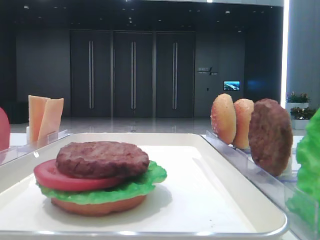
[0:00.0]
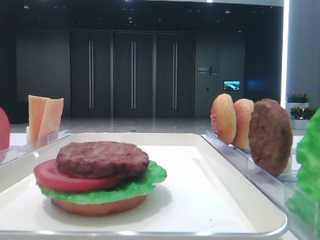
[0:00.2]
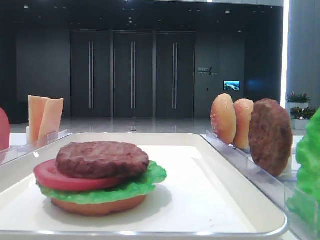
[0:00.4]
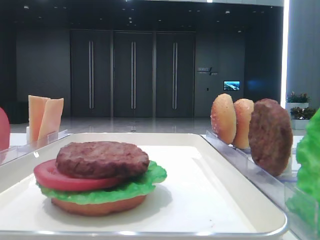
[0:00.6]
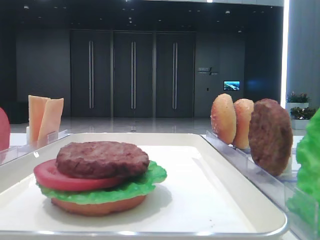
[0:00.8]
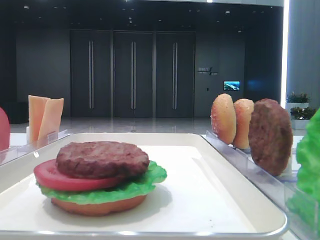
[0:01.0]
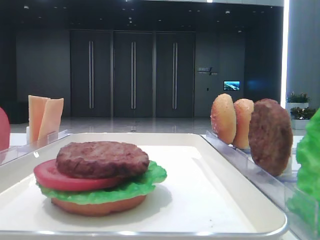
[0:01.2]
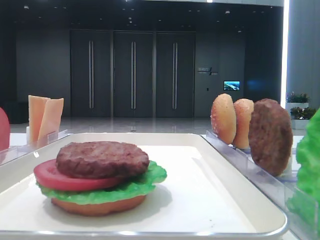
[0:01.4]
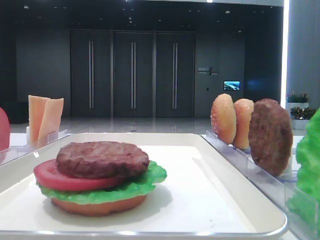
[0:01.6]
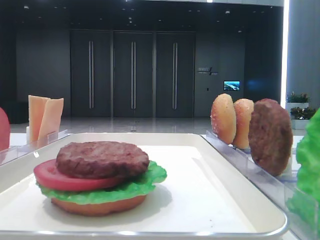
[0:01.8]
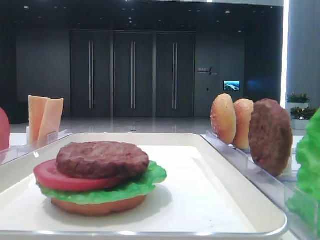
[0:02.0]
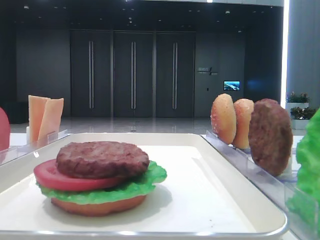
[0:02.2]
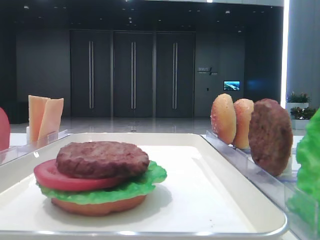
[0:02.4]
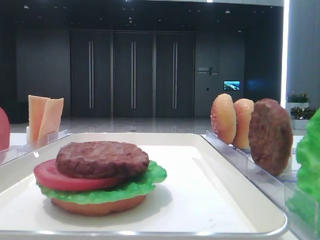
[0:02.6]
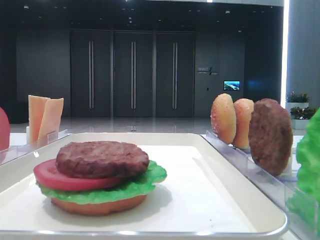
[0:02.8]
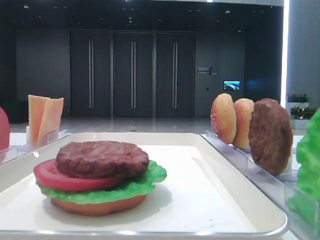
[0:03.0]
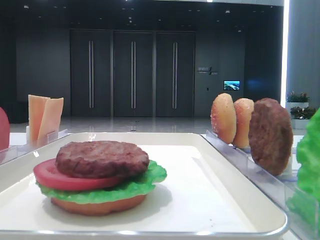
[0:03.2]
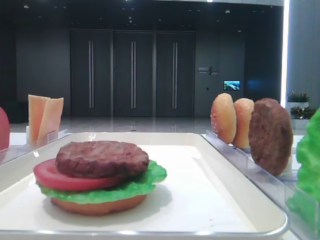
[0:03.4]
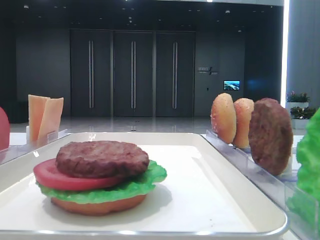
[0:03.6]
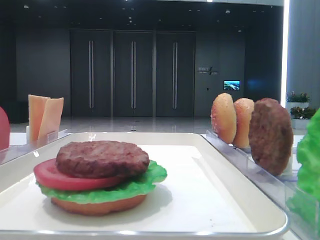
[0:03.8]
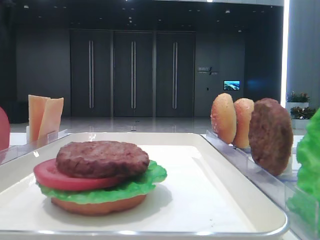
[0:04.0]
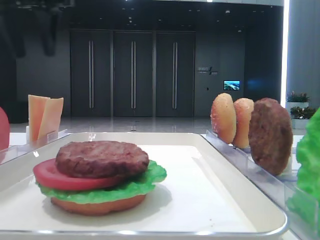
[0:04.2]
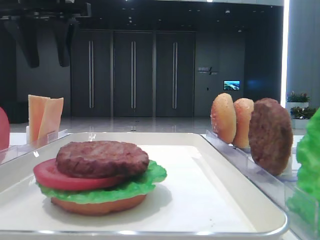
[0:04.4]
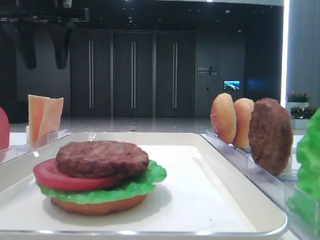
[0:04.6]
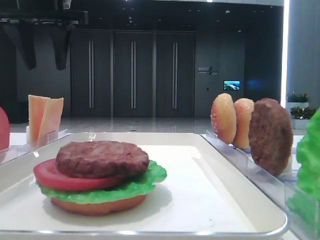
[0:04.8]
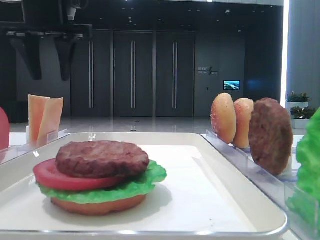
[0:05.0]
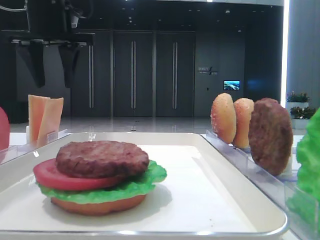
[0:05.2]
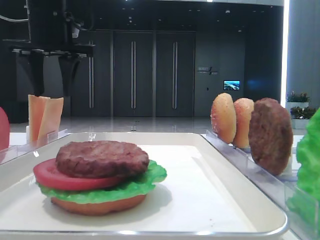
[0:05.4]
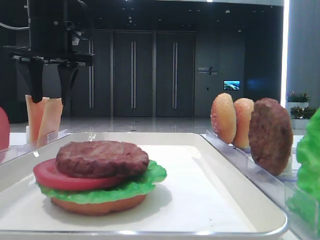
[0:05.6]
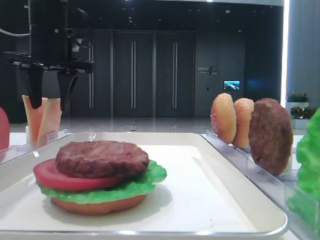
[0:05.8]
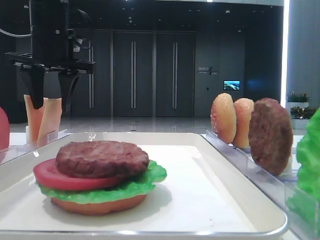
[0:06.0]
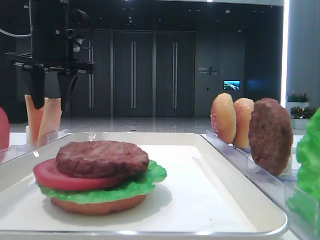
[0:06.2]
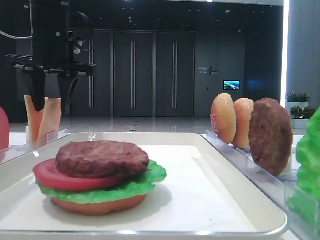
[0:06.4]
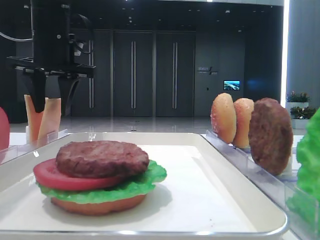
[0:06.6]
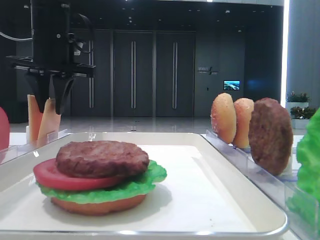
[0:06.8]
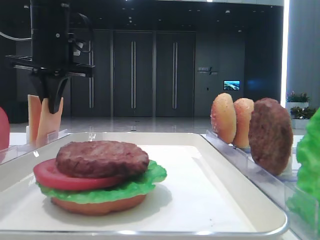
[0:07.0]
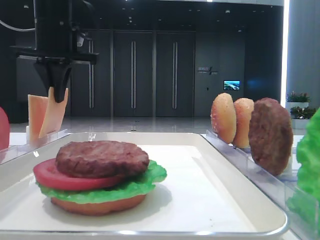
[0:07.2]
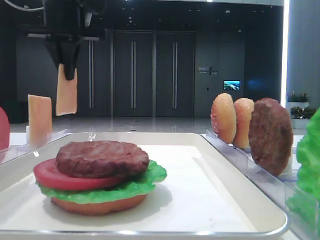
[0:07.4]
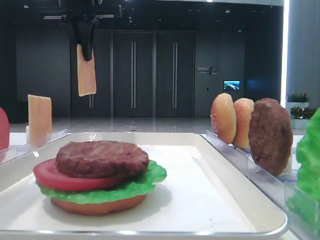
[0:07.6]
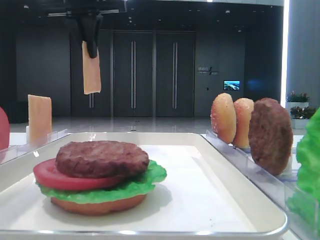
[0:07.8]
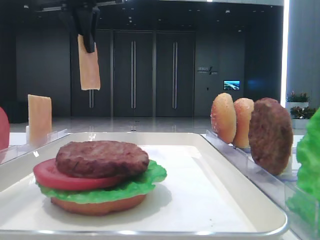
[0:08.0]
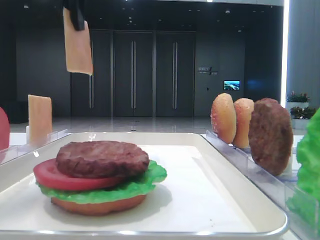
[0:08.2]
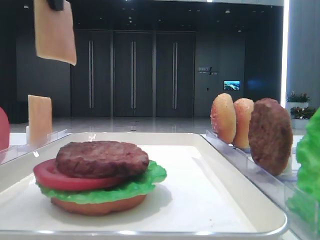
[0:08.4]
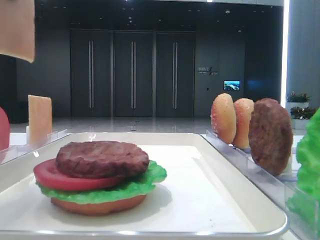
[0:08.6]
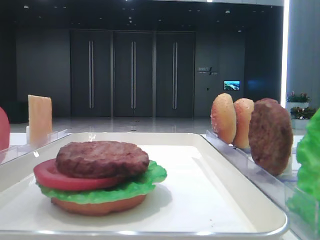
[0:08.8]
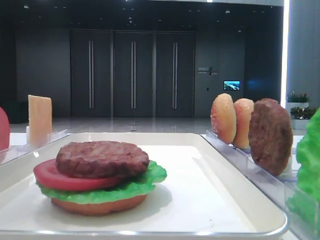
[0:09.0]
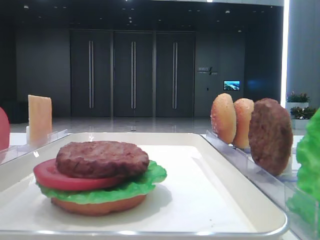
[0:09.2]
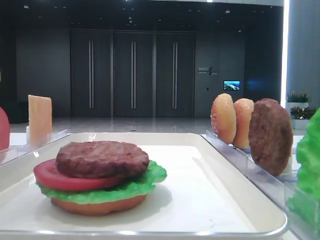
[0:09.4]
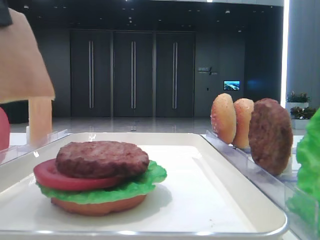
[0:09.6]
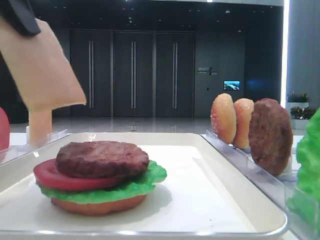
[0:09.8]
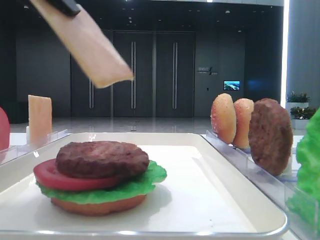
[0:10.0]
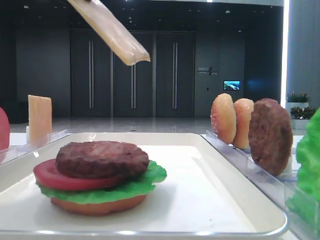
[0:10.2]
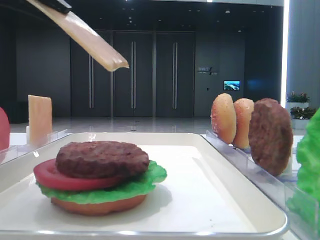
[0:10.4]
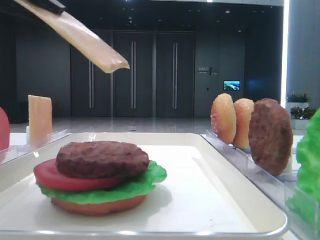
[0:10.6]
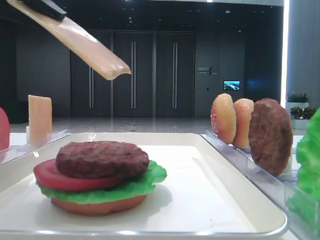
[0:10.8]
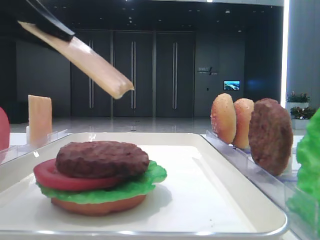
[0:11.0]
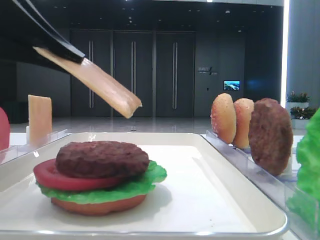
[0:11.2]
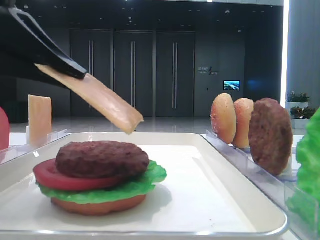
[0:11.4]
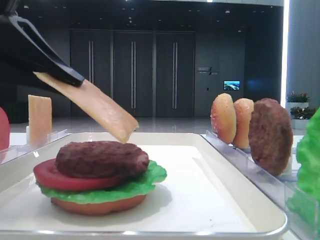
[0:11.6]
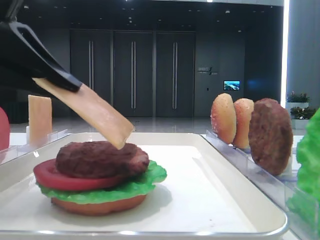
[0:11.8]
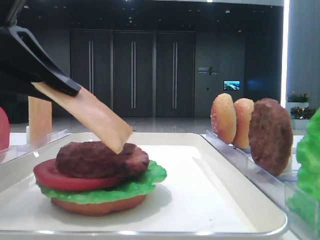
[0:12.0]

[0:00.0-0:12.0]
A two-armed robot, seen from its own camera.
Step, 0:00.0 to 0:06.8: Pick up the cheese slice with the left hand.
0:03.0 to 0:04.4: The left gripper is displaced to the right, forward and downward by some 20 cm.
0:04.4 to 0:06.0: The left gripper heads downward, covering roughly 5 cm.
0:06.0 to 0:07.6: The left gripper travels upward by approximately 10 cm, and closes up.
0:07.6 to 0:09.0: The left gripper goes approximately 20 cm backward.
0:09.0 to 0:10.4: The left gripper goes approximately 10 cm downward.
0:10.4 to 0:12.0: The left gripper goes approximately 5 cm downward.

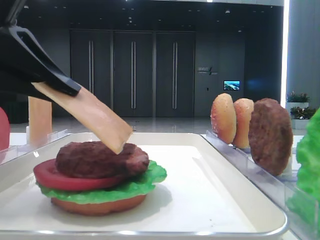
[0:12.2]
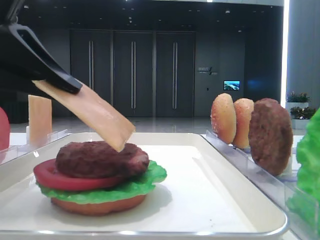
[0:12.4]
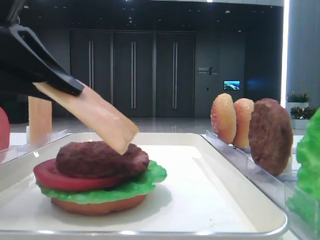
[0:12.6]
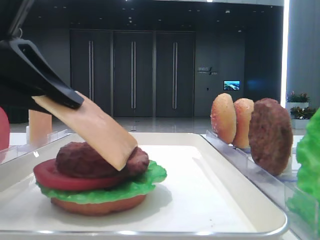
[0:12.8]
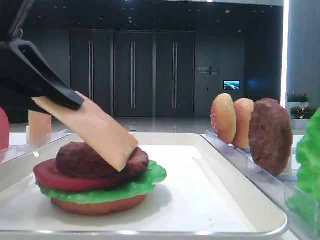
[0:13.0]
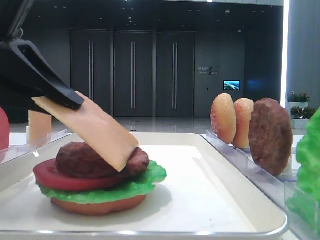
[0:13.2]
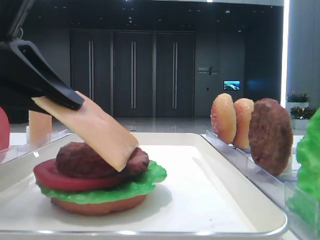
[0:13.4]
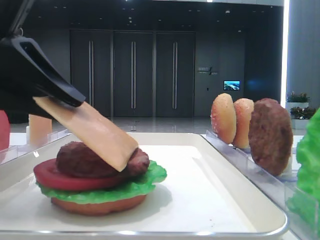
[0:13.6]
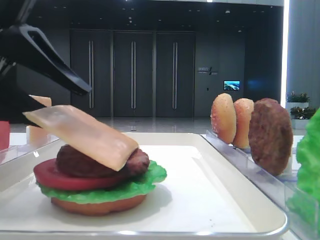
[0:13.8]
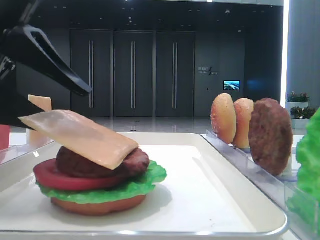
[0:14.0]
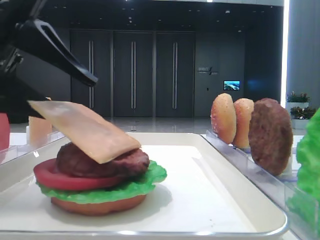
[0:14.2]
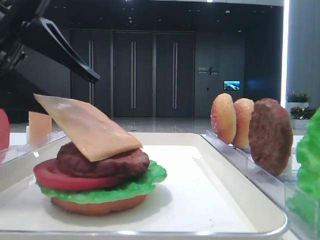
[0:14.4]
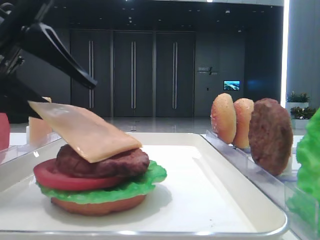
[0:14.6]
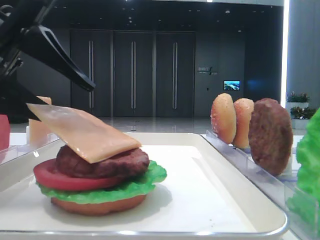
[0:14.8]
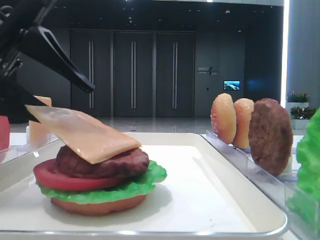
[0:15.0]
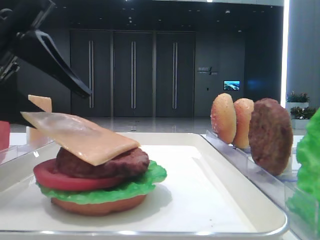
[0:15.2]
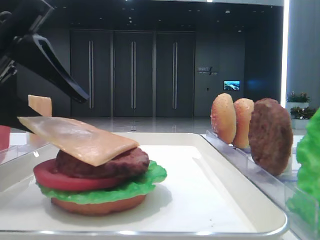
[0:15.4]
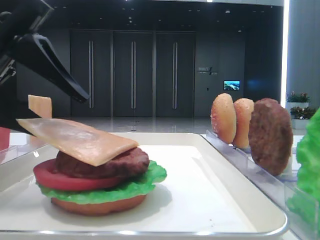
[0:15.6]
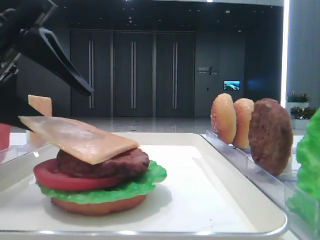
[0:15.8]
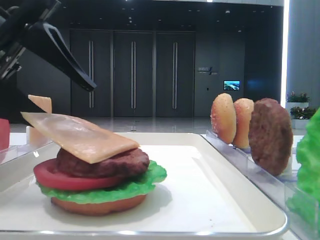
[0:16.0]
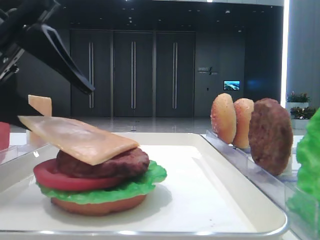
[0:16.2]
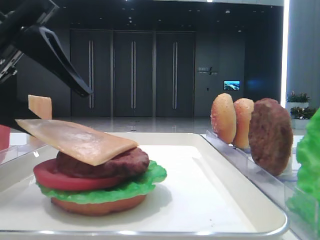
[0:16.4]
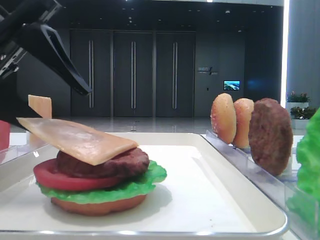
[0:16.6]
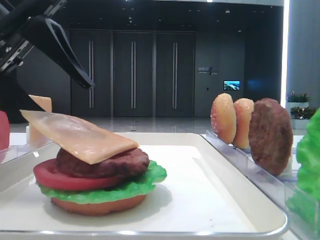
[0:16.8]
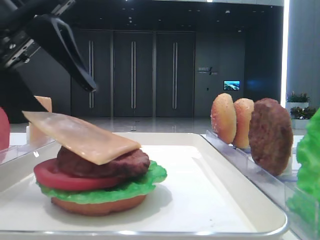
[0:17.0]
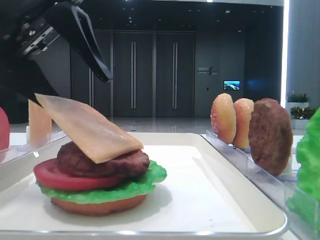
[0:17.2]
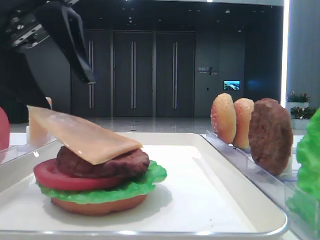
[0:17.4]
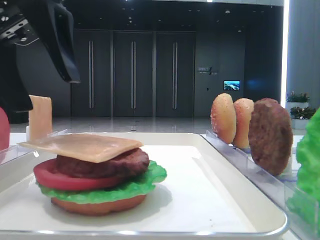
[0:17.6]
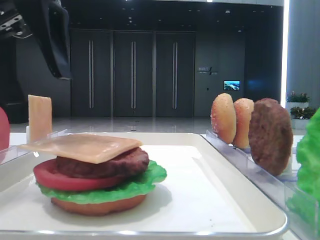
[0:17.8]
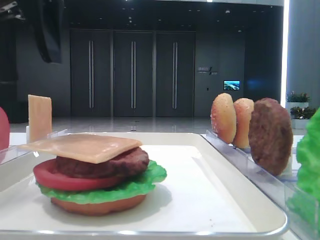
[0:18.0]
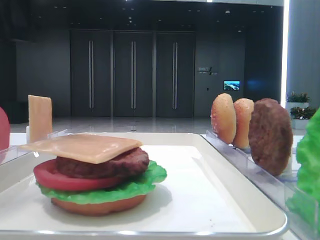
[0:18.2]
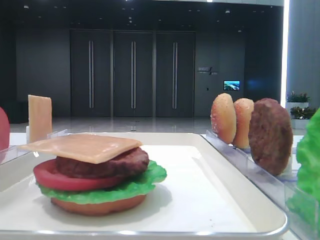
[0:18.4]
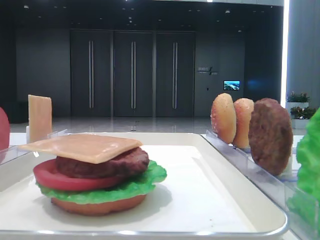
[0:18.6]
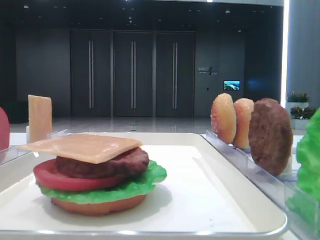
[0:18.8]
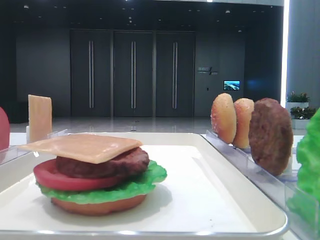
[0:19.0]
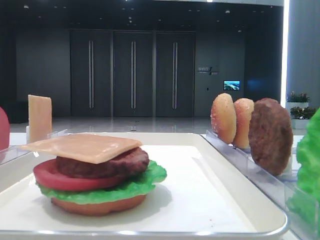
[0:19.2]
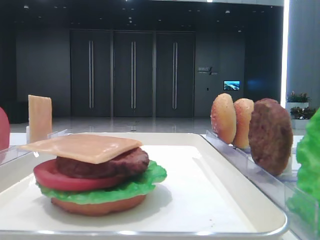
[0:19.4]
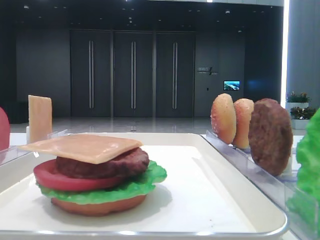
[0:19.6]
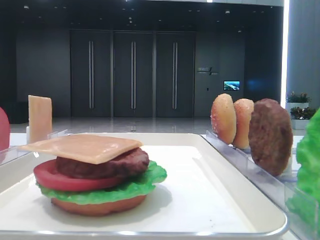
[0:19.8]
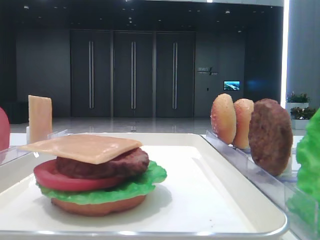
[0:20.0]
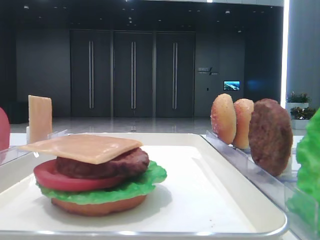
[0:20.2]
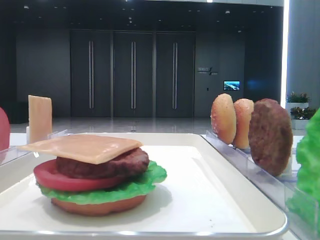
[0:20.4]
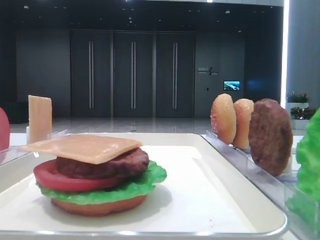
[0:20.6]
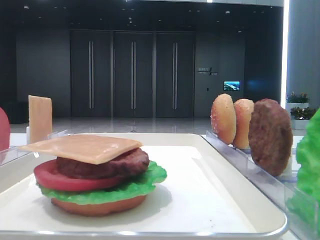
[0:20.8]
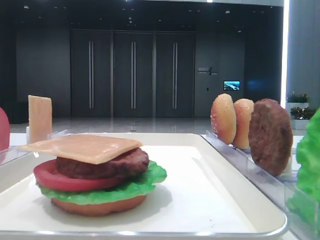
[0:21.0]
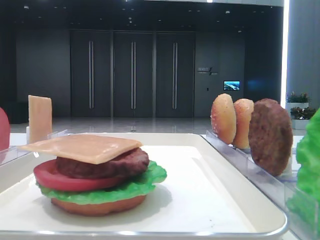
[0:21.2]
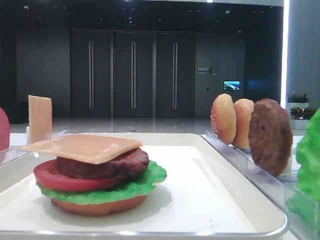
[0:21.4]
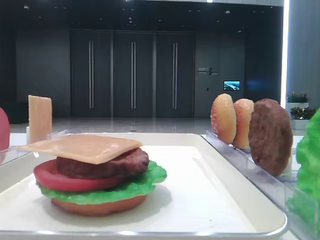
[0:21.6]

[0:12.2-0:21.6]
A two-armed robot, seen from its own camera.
Step, 0:12.2 to 0:17.4: Place the cheese slice on the patty with the left hand.
0:12.2 to 0:13.8: The left gripper opens its fingers.
0:13.8 to 0:17.0: There are only small adjustments of the grippers.
0:17.0 to 0:18.4: The left gripper is displaced upward by roughly 10 cm.
0:18.4 to 0:20.0: The left gripper heads backward and to the left, covering some 25 cm.

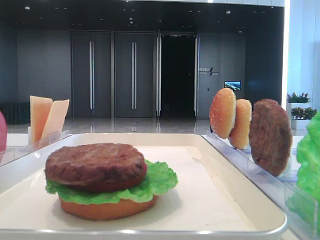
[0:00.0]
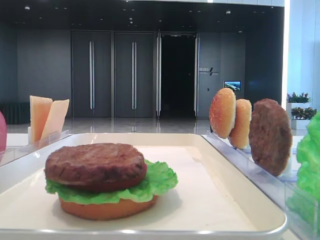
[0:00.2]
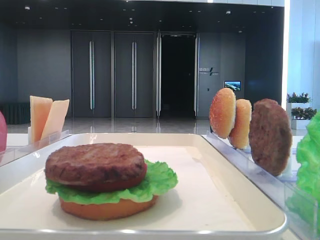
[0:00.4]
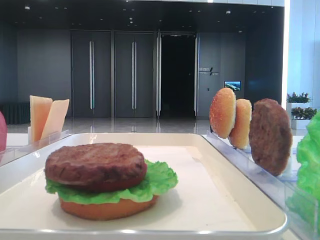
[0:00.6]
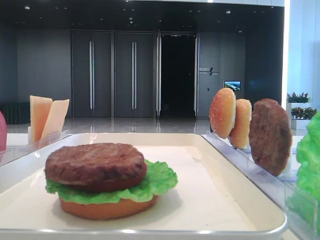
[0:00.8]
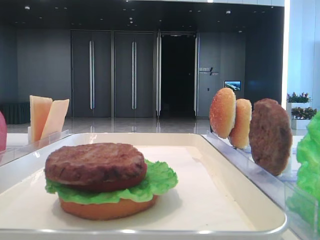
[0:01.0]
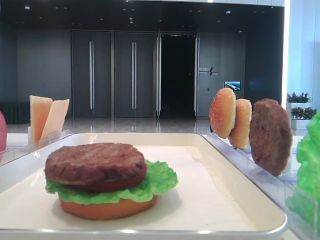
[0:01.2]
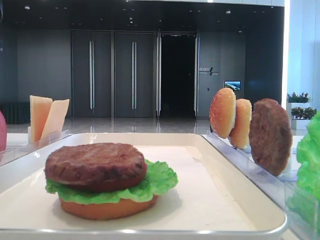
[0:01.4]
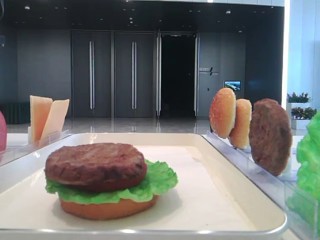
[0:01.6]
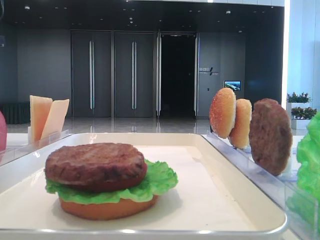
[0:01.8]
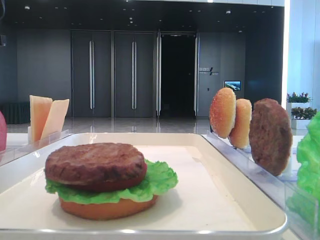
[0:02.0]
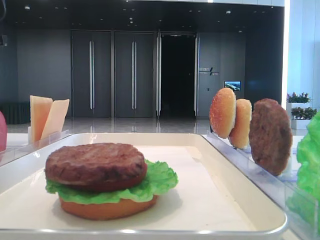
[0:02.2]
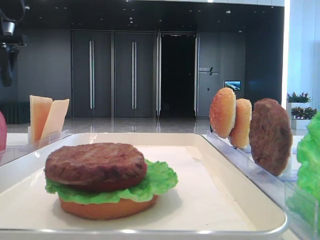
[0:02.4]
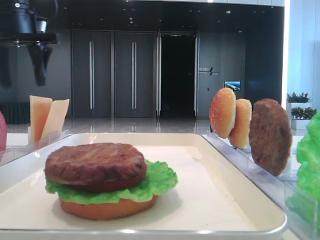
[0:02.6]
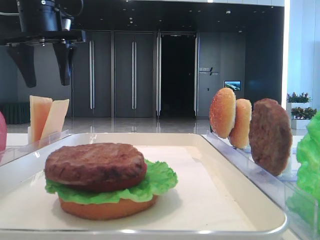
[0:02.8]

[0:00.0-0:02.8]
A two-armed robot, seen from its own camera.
0:01.4 to 0:02.8: The left gripper heads to the right, covering about 15 cm.
